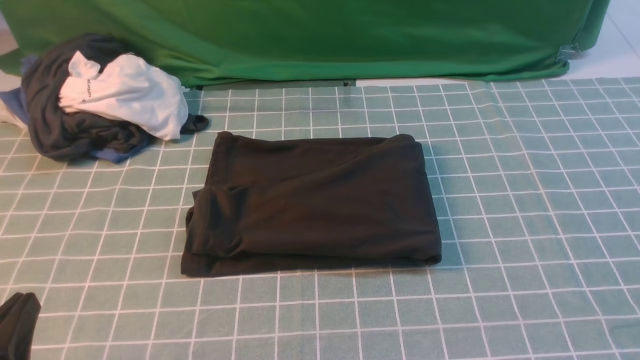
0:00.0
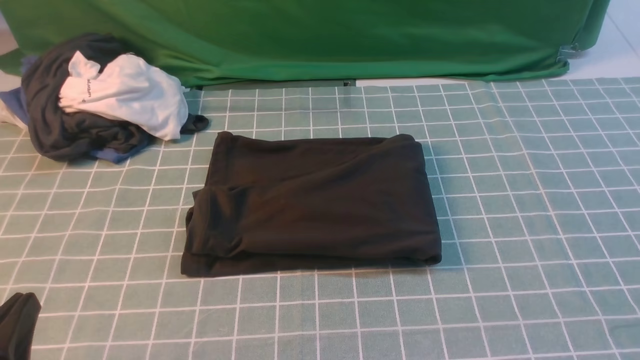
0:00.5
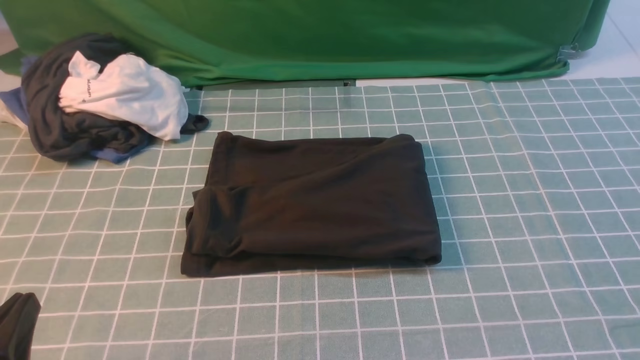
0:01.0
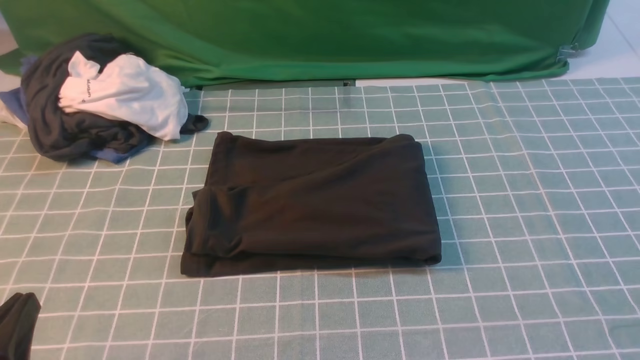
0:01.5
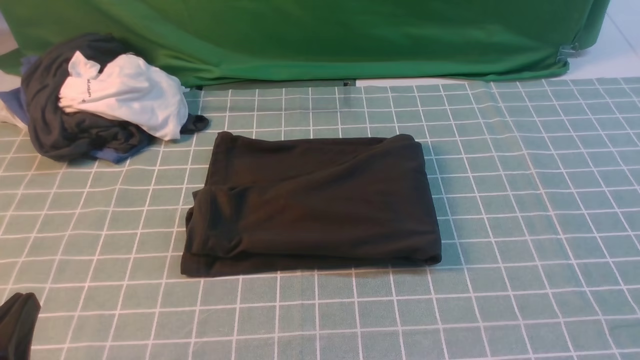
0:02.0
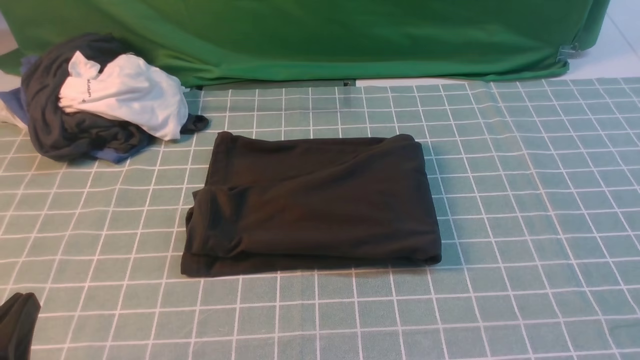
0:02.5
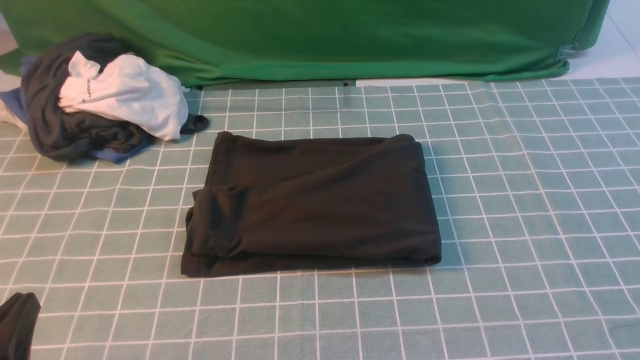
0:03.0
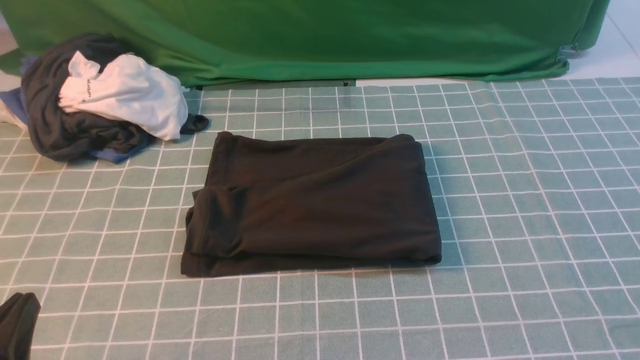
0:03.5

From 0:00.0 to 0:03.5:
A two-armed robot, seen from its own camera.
From 0:02.0 to 0:03.5: Both grippers stay put.

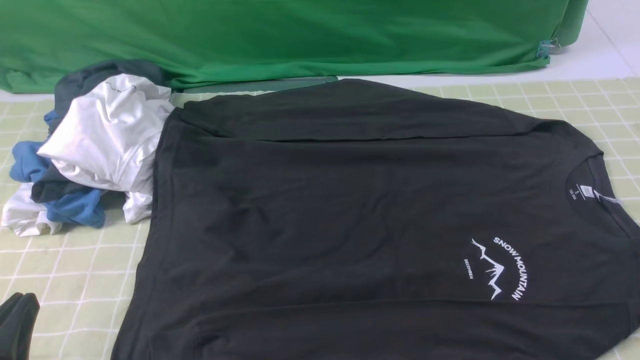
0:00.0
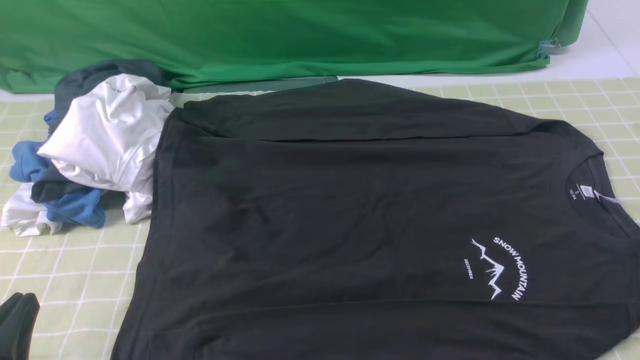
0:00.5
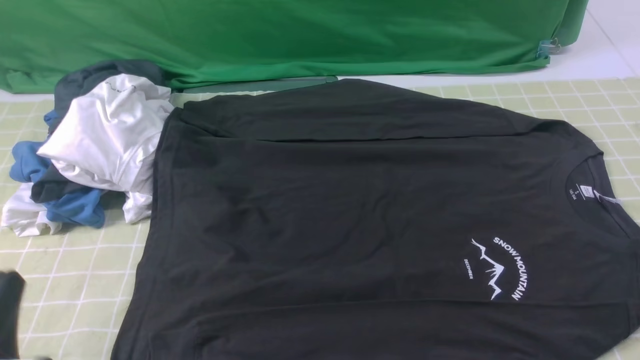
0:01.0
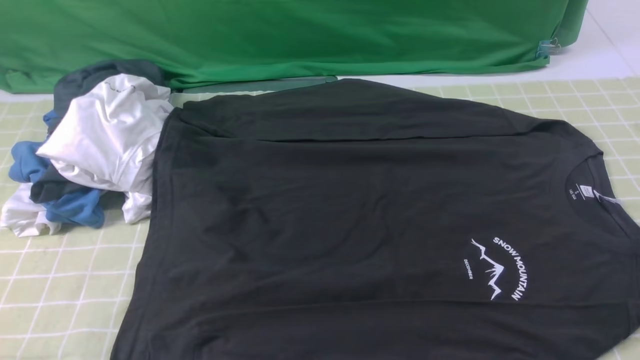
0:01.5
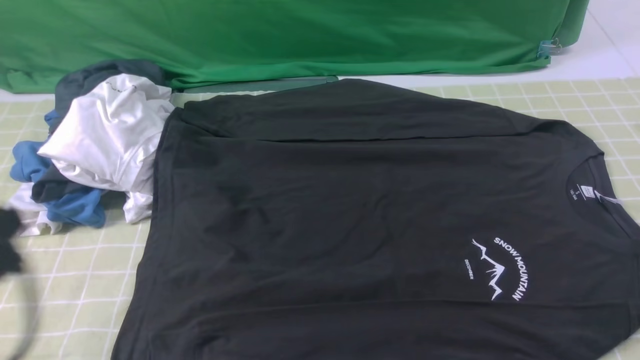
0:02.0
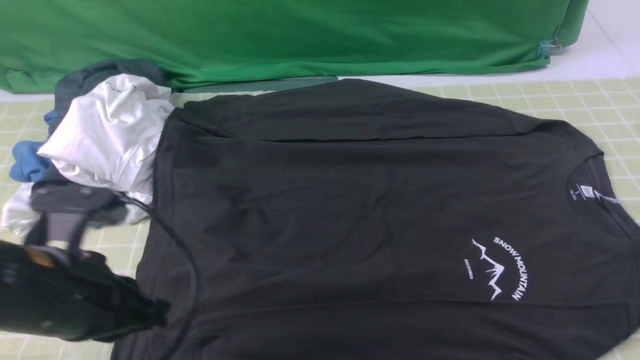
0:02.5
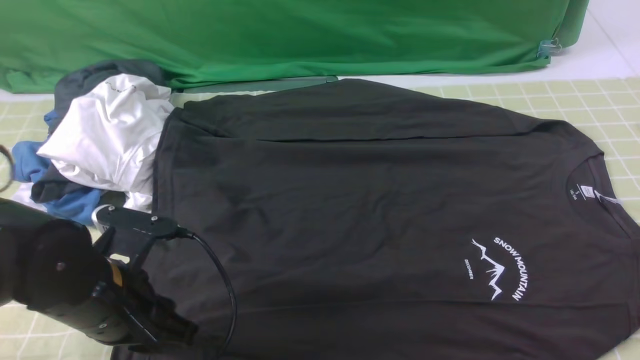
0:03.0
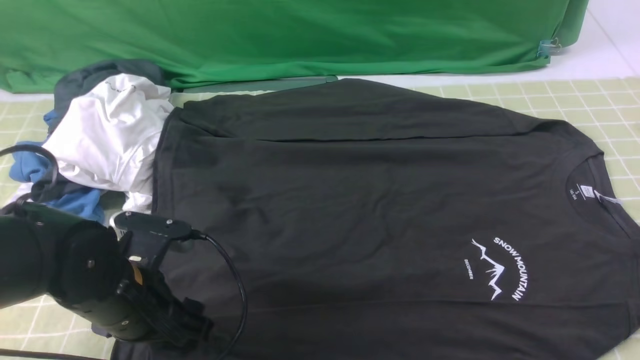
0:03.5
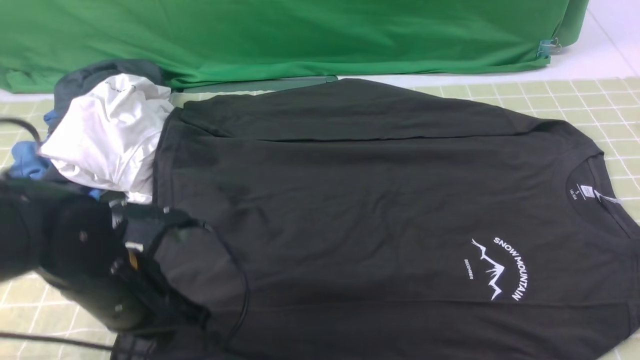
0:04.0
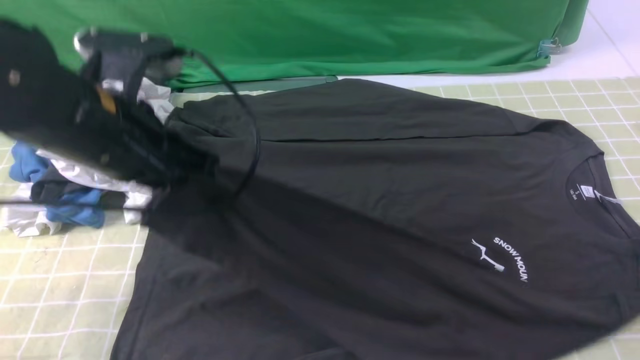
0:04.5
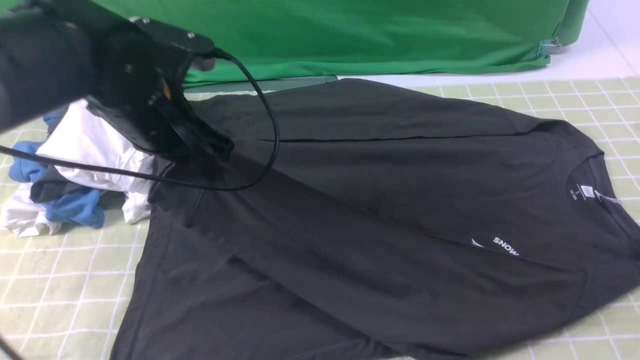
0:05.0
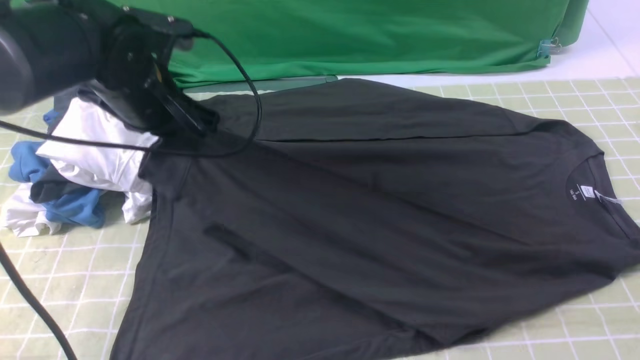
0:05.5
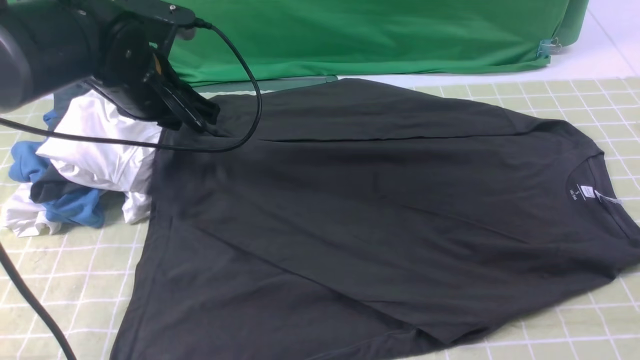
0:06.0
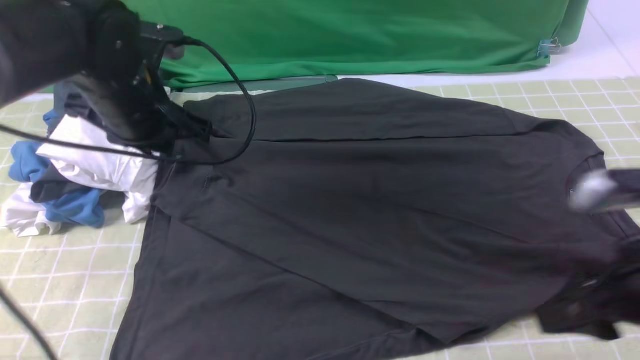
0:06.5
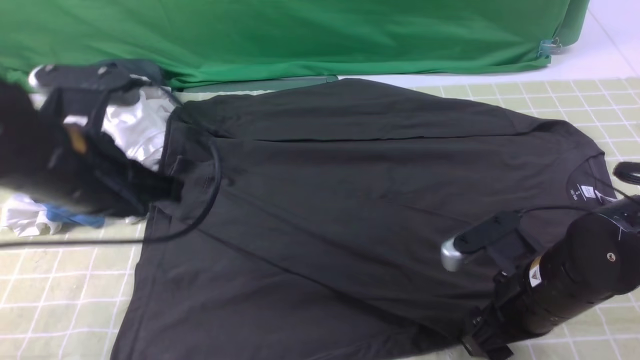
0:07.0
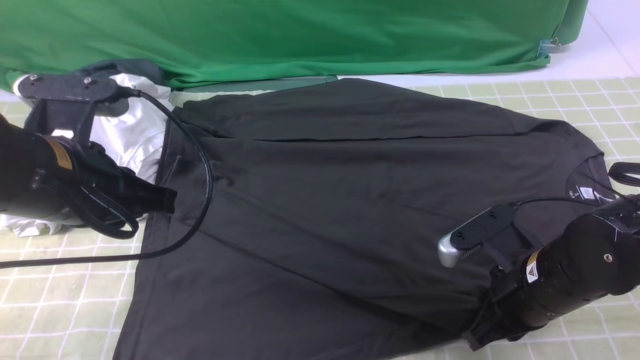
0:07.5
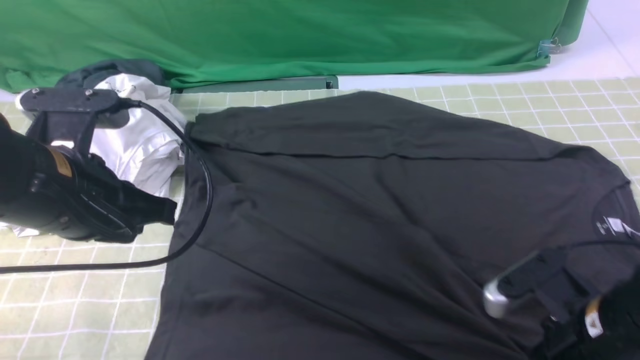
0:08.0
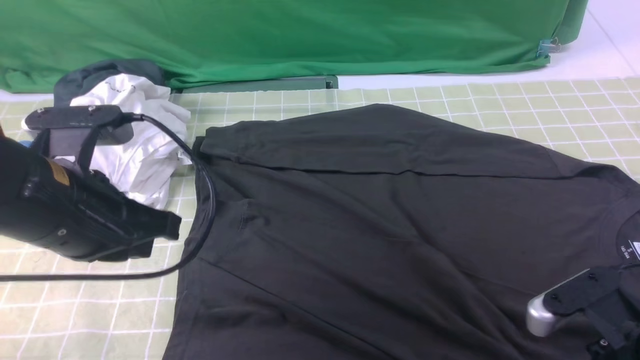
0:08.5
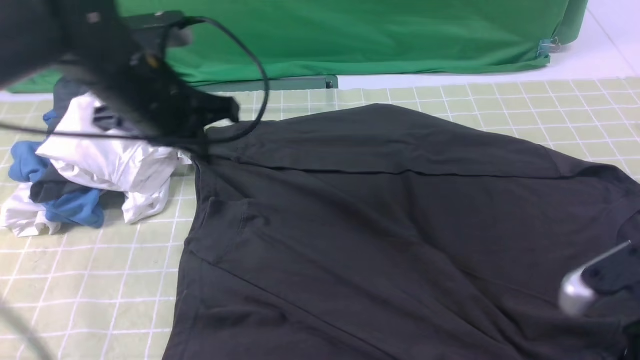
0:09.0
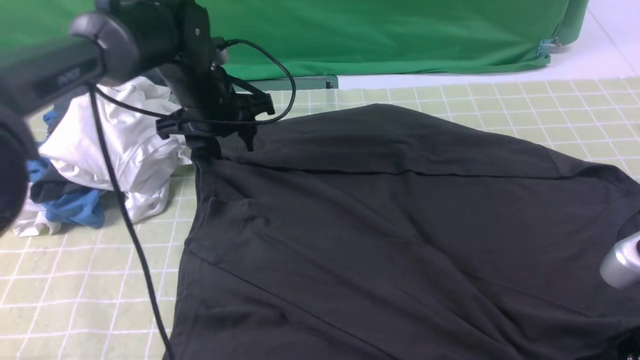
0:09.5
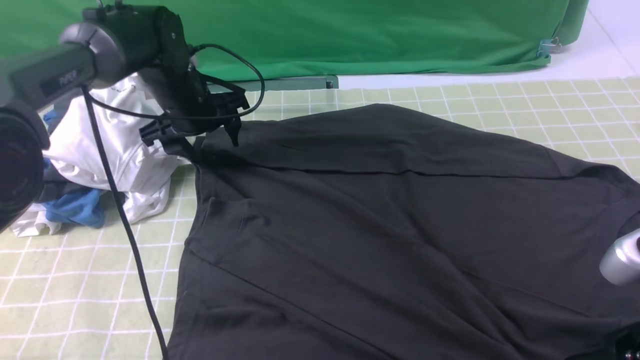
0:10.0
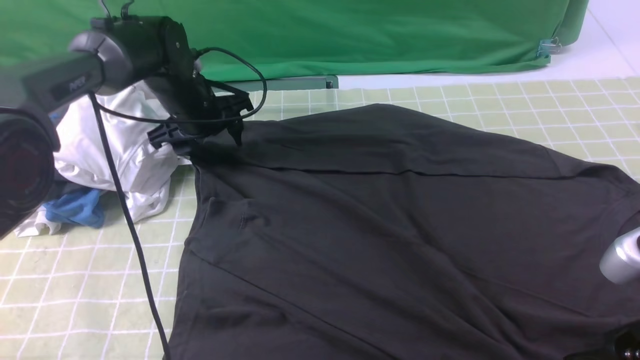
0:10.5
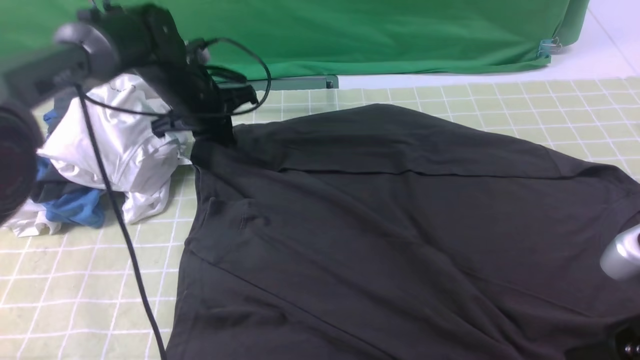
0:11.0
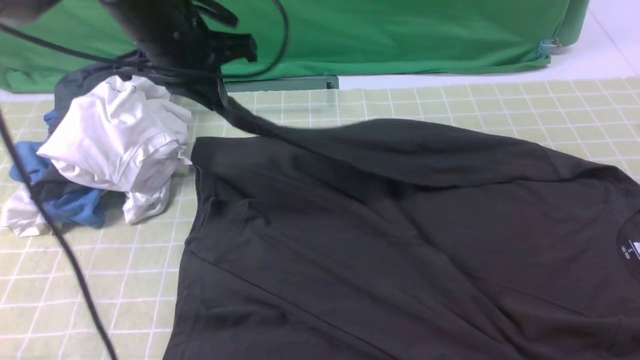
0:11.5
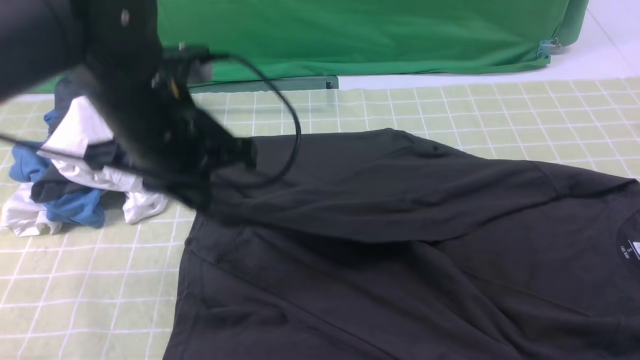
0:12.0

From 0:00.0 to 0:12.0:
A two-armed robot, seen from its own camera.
Step, from 0:00.0 to 0:03.5: use the left arm to clamp the cuff closest to it.
Step, from 0:04.0 to 0:06.0: use the left arm to drag and place the cuff at the centered position on the left edge of the fabric.
Step, from 0:06.5 to 0:10.5: use the left arm to clamp the cuff farthest from it.
From 0:00.0 to 0:02.0: The left gripper heads upward and forward, covering some 15 cm.
From 0:02.0 to 0:04.0: The right gripper moves upward and forward, roughly 10 cm, and closes. The left gripper shifts some 15 cm downward, forward and to the right, and opens, then closes again.
From 0:04.0 to 0:06.0: The left gripper goes some 15 cm forward and upward, and opens up.
From 0:06.0 to 0:08.0: The right gripper travels downward and to the left by some 15 cm, and opens, then closes once more. The left gripper heads backward, covering roughly 15 cm, and closes its fingers.
From 0:08.0 to 0:10.0: The left gripper heads forward and downward, covering some 25 cm, and opens up, while the right gripper is displaced upward and backward by roughly 10 cm, and opens up.
From 0:10.0 to 0:12.0: The right gripper shifts about 5 cm upward, and closes up, while the left gripper heads backward and upward, covering approximately 20 cm, and closes.

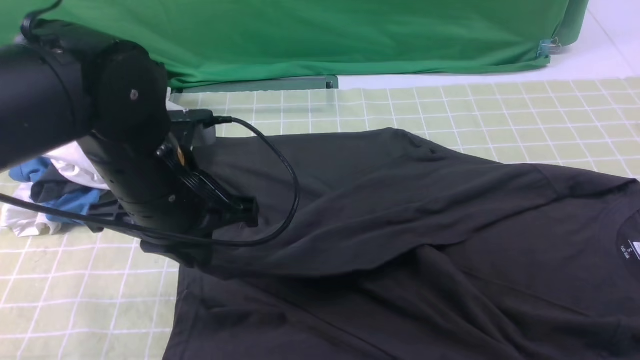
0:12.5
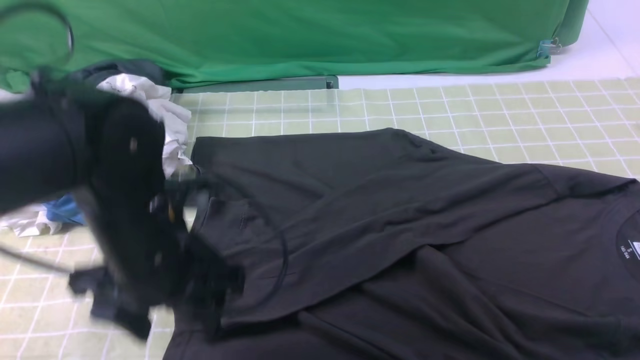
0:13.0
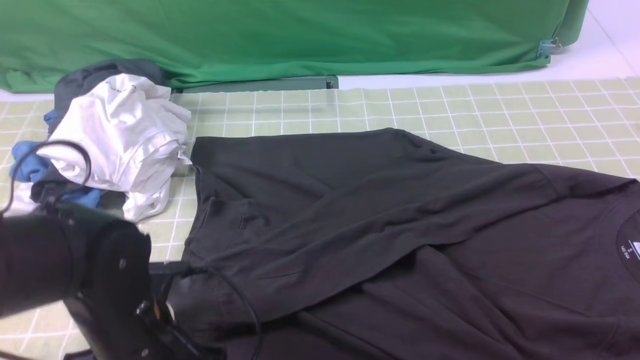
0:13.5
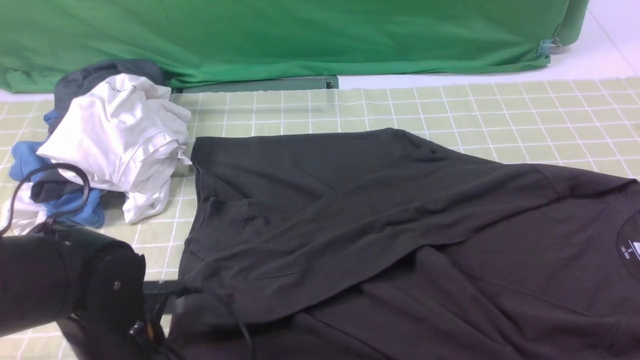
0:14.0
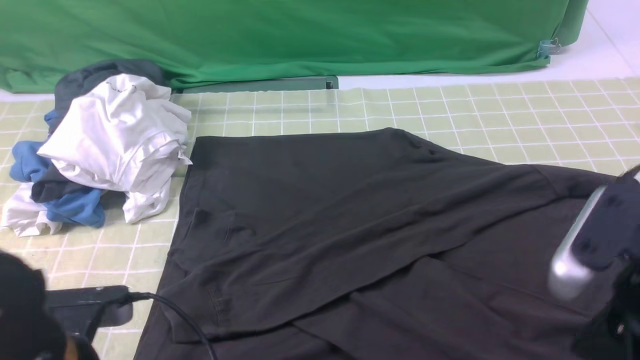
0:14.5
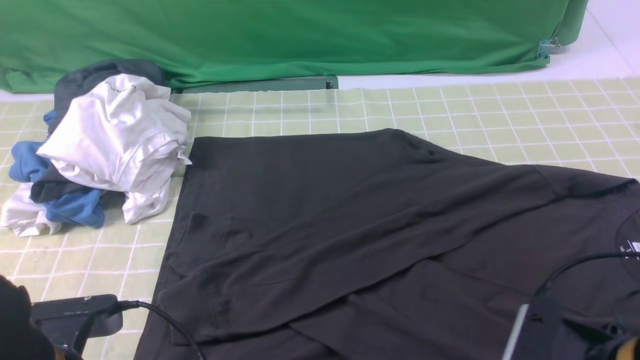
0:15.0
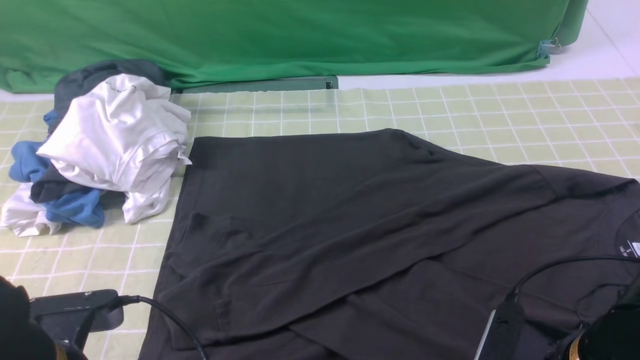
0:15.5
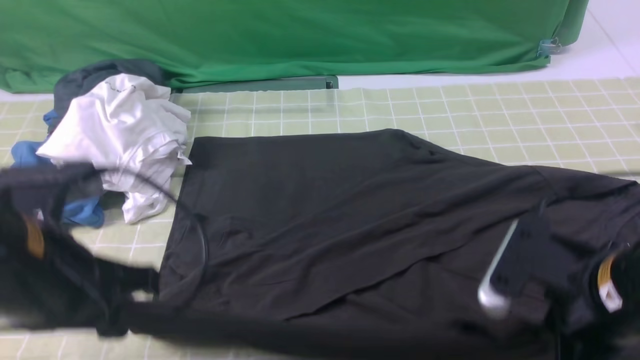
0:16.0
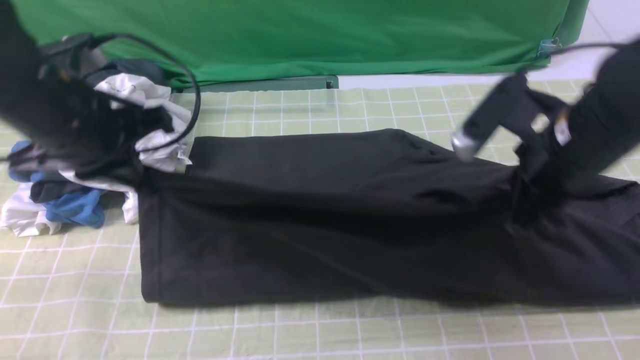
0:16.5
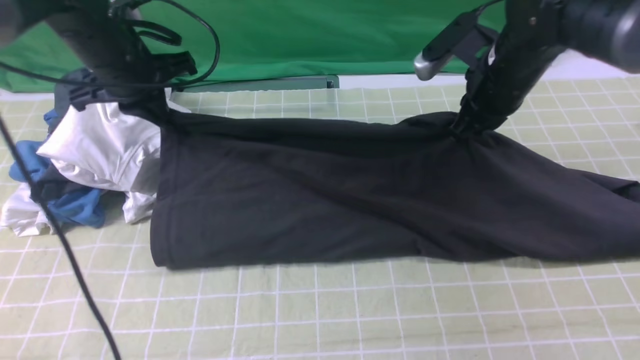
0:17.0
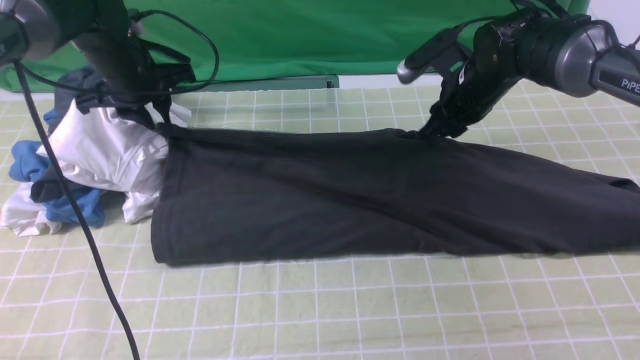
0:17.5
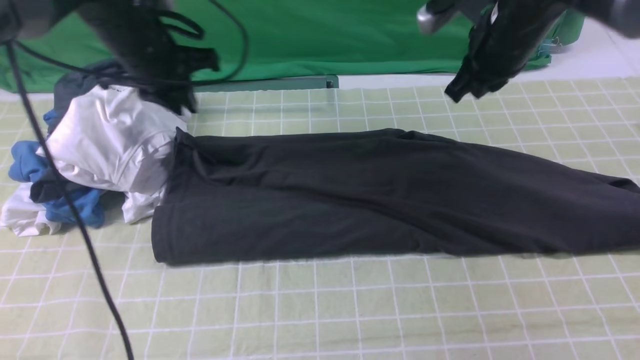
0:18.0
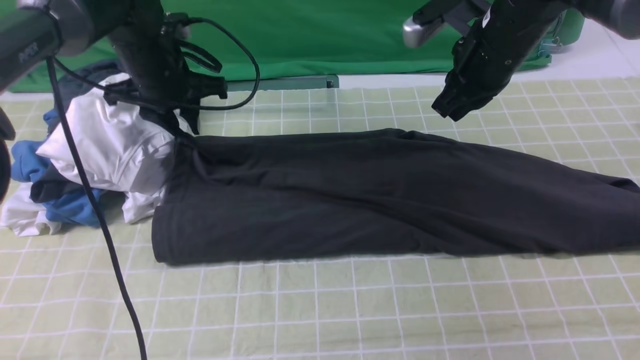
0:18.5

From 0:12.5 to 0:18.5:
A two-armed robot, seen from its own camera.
Step, from 0:13.0 to 0:15.5: use both arms simultaneously to clamp the lower edge of the clothing fabric.
Step, from 0:16.0 to 0:17.5: use both arms to drag the lower edge of the fabric forward and fold it over the upper edge.
From 0:12.5 to 0:14.5: The left gripper is displaced backward and downward by some 15 cm, and opens, then closes again. The right gripper travels downward by some 5 cm.
From 0:14.5 to 0:16.5: The left gripper heads forward and upward, covering approximately 20 cm; the right gripper travels forward by approximately 15 cm, and opens, then closes again.
From 0:16.5 to 0:18.5: The left gripper shifts some 15 cm forward and downward, and opens. Meanwhile the right gripper is displaced forward by approximately 15 cm, and opens and closes again.
